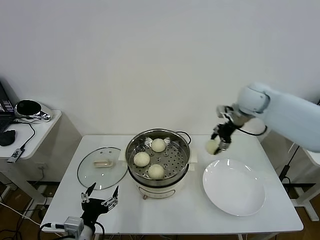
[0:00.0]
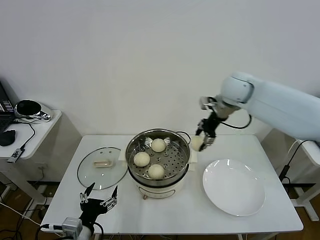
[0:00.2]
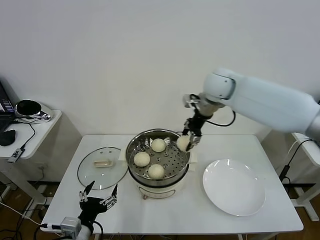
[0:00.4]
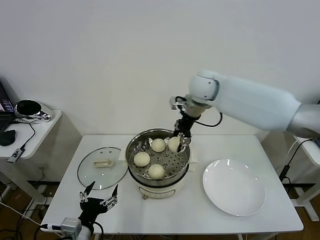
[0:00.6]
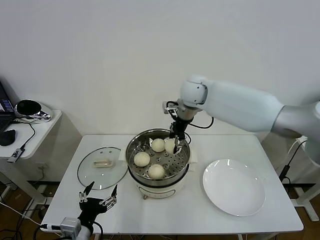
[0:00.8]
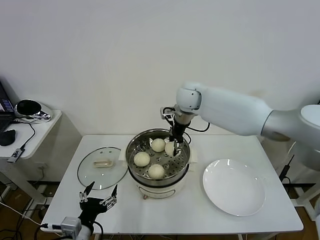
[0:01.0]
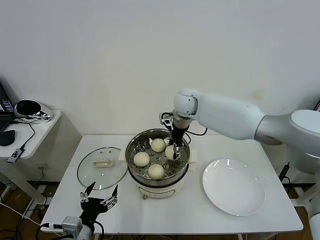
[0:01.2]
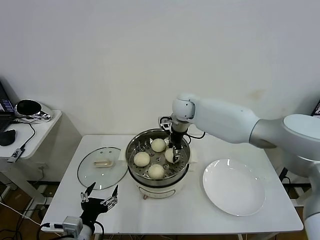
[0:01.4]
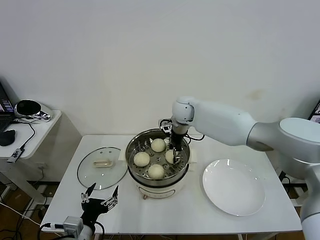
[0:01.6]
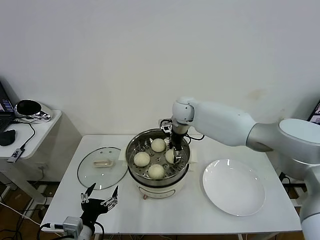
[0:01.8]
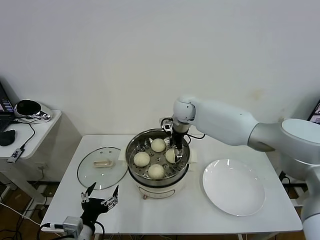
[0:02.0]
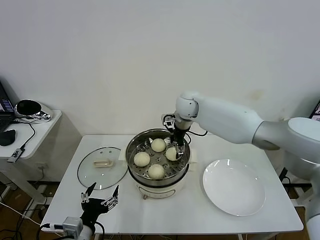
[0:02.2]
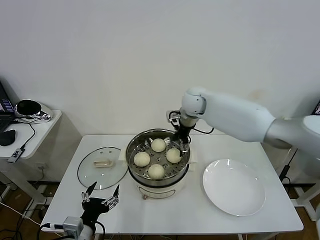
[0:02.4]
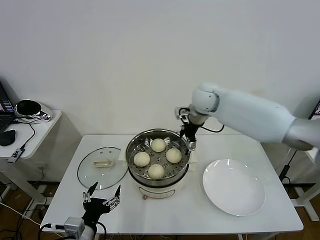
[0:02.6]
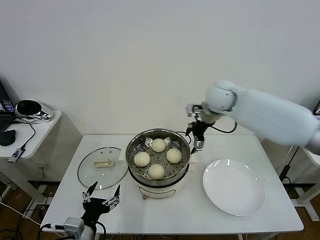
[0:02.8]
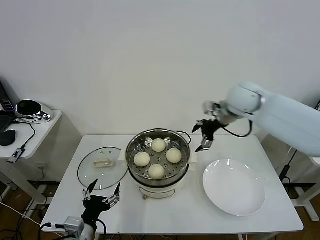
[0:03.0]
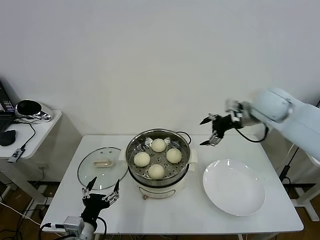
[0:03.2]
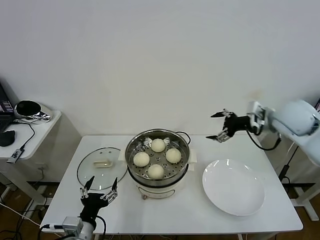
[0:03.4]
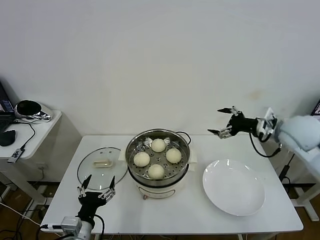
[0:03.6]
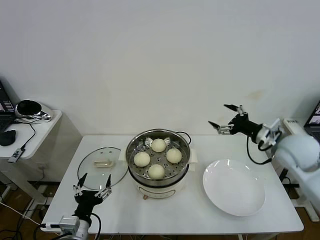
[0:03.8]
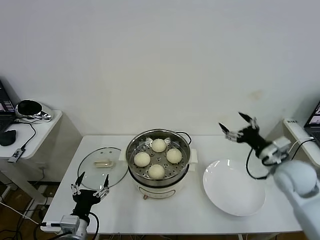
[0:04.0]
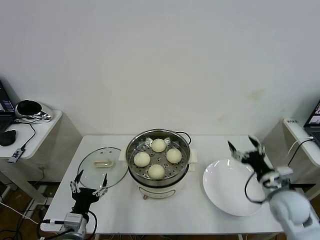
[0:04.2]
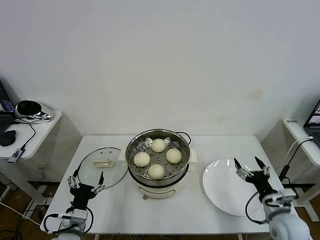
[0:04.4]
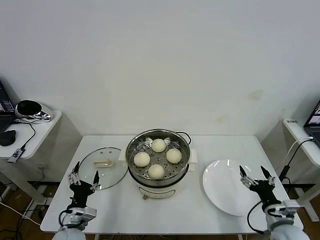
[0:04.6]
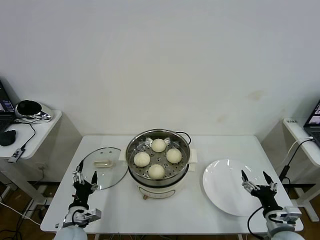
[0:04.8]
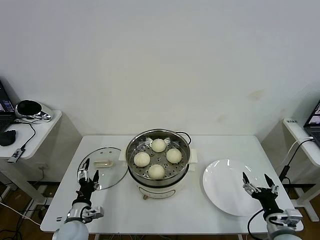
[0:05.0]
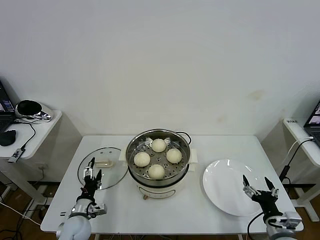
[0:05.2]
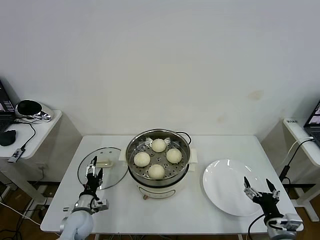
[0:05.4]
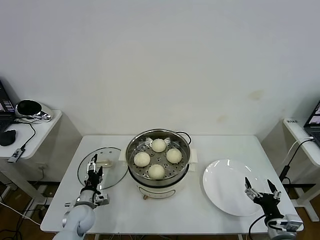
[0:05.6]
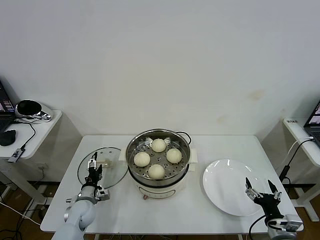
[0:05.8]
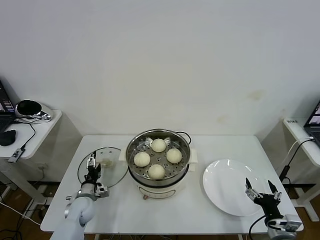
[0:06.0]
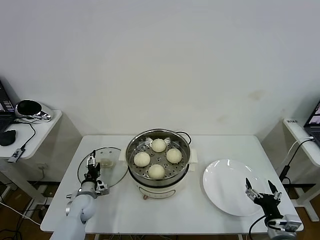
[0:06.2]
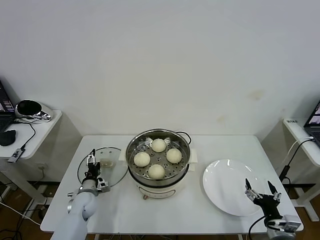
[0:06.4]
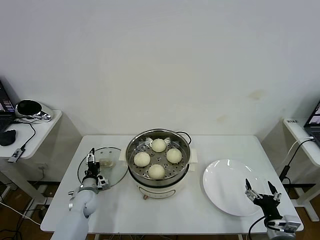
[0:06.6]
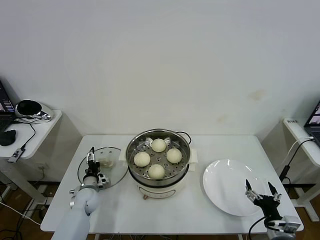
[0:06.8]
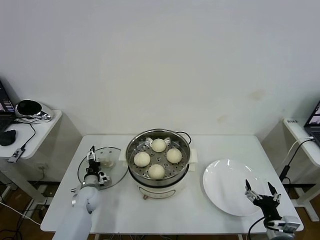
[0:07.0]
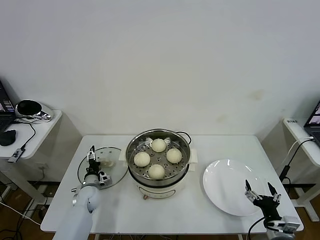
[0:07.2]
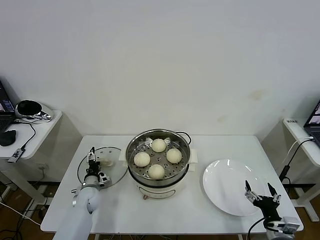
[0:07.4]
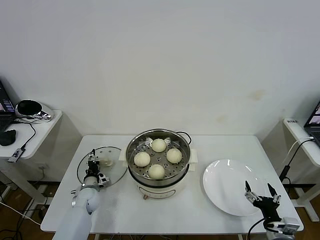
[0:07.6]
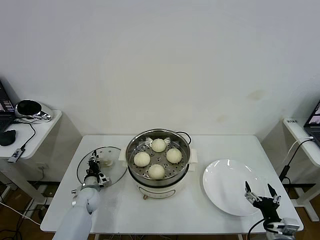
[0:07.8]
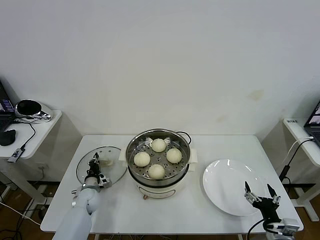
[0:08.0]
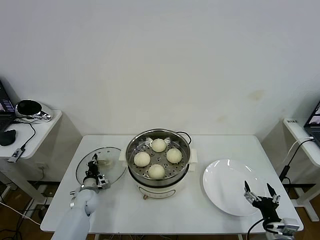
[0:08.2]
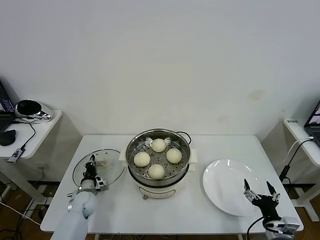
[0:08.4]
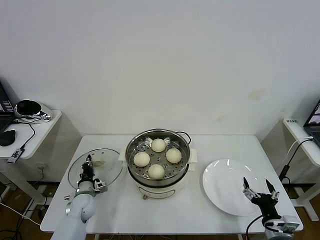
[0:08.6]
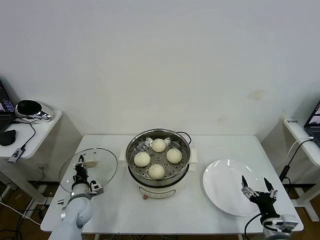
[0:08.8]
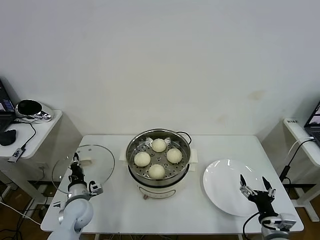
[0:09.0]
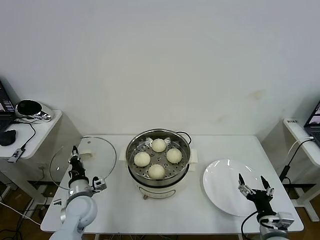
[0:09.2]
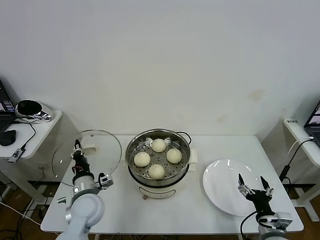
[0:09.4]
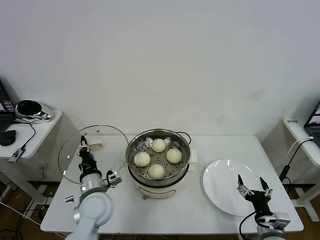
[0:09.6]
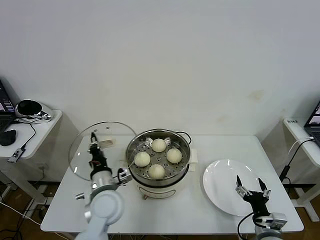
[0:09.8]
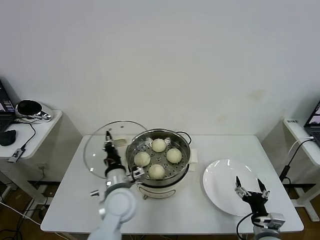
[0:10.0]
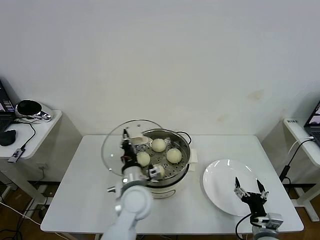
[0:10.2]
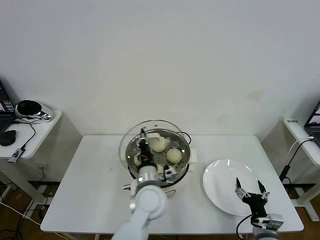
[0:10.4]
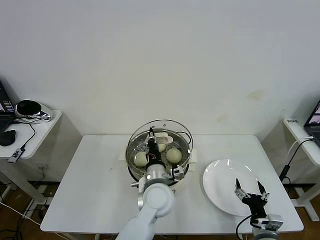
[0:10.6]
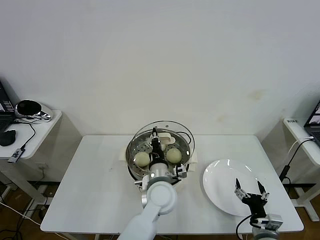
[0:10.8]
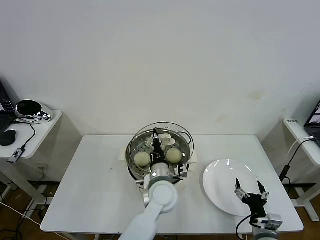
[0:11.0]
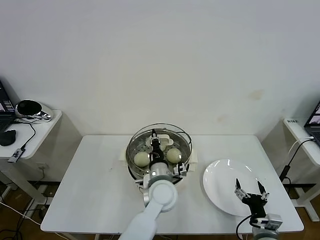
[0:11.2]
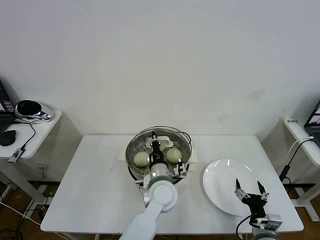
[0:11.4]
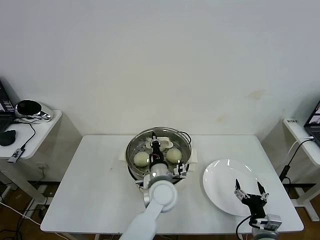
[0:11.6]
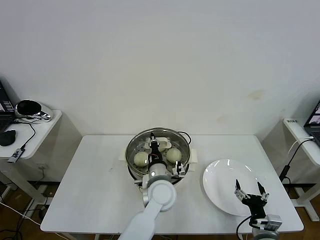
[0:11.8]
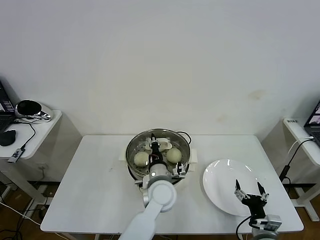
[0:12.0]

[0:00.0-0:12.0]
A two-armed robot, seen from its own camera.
Task of the whole recording: take steamed baozi put them in steamer then cover it.
Step, 0:00.0 to 0:02.0: Place the baozi on the steamer with right gripper.
Step, 0:02.2 to 0:08.2: Grasp the pot lid with left gripper.
0:00.0 to 0:01.6: The right gripper heads to the left, covering roughly 20 cm.
0:01.6 to 0:03.0: The right gripper heads to the right, upward and backward, covering about 20 cm, and opens its fingers.
0:03.0 to 0:04.4: The left gripper shifts by about 5 cm. The right gripper goes approximately 40 cm backward, downward and to the right.
0:04.4 to 0:06.0: The right gripper is displaced backward by approximately 5 cm; the left gripper shifts about 20 cm forward and downward.
0:06.0 to 0:07.6: The left gripper heads forward, covering about 5 cm.
0:07.6 to 0:09.0: The left gripper heads backward and upward, covering some 10 cm, and closes its fingers.
0:09.0 to 0:10.4: The left gripper is displaced to the right and upward by roughly 30 cm.
0:10.4 to 0:12.0: The left gripper moves roughly 5 cm.

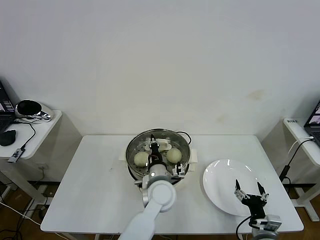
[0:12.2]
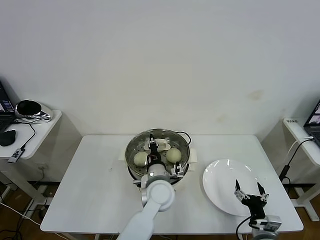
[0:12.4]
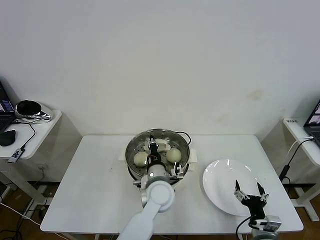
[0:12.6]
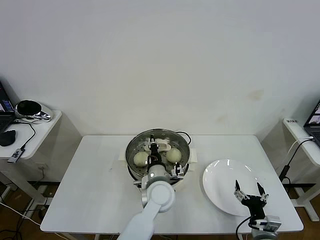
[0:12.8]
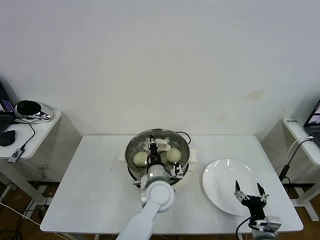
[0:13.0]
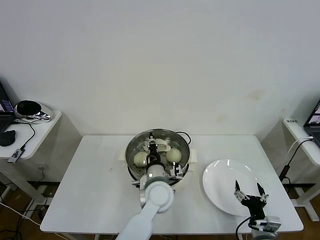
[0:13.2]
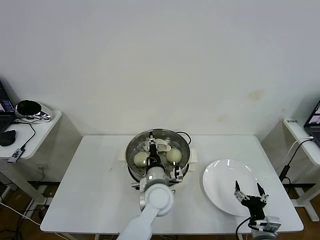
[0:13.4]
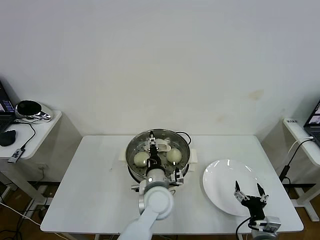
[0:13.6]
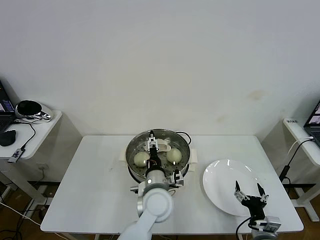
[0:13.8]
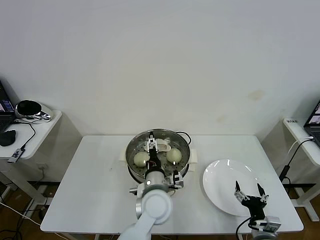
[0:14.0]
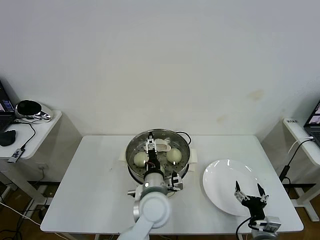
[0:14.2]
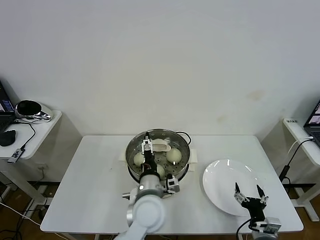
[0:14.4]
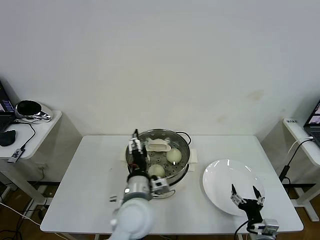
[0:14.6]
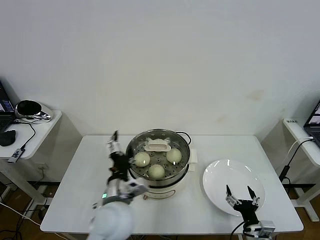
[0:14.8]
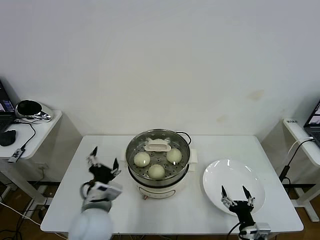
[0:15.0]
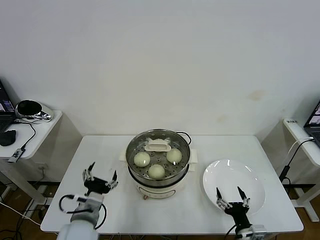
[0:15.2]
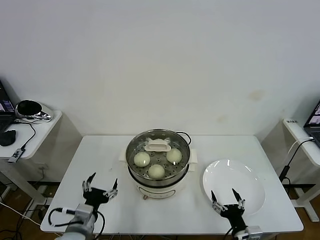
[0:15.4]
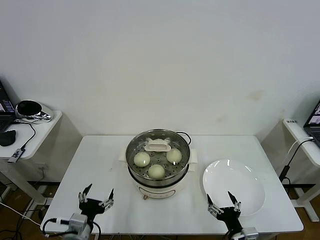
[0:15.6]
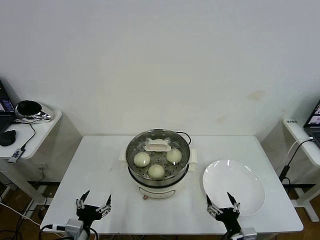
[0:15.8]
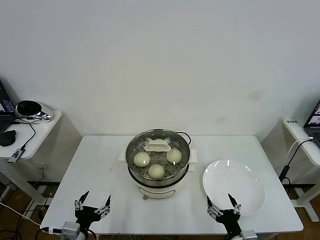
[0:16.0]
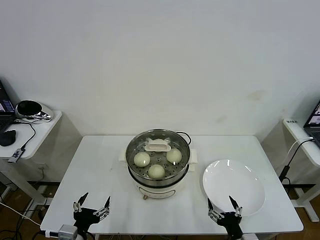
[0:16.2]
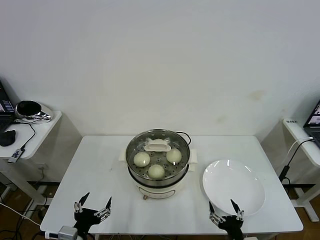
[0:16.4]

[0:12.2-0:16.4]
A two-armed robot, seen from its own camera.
Task of the whole recording: take steamed baozi put them in steamer then cover it.
0:12.2 to 0:13.6: The left gripper opens its fingers.
0:13.6 to 0:15.0: The left gripper moves to the left and backward, about 15 cm.
0:15.0 to 0:16.4: The left gripper heads to the left, backward and downward, covering some 15 cm. The right gripper ends up some 5 cm from where it was.
